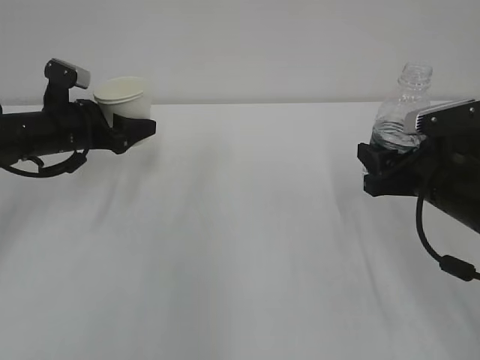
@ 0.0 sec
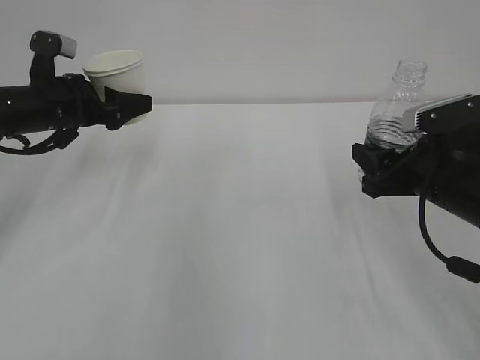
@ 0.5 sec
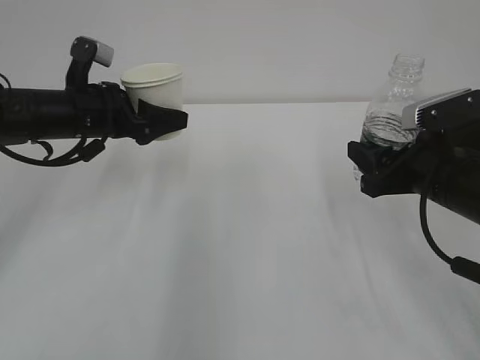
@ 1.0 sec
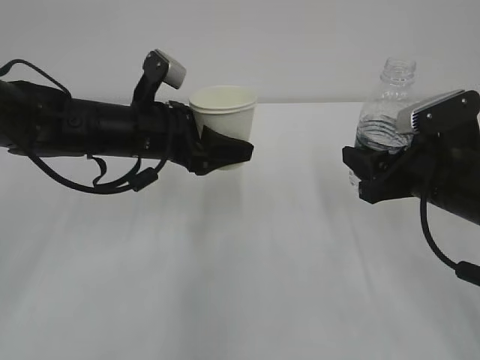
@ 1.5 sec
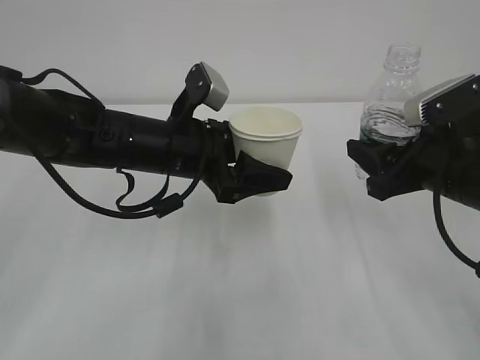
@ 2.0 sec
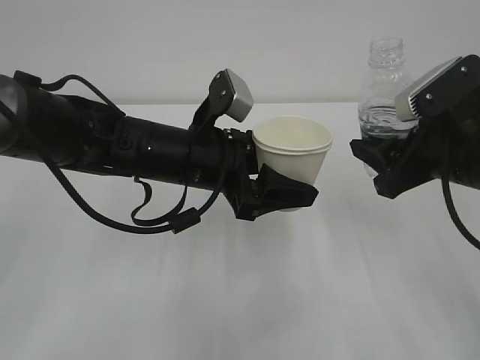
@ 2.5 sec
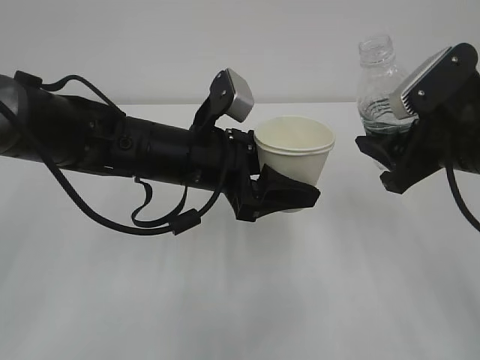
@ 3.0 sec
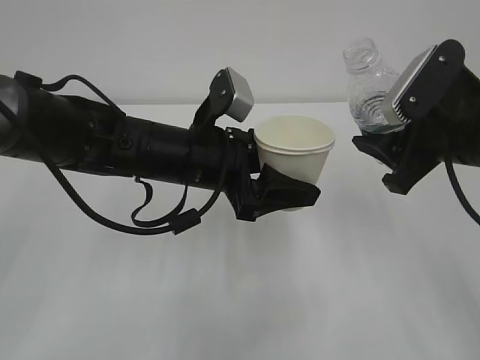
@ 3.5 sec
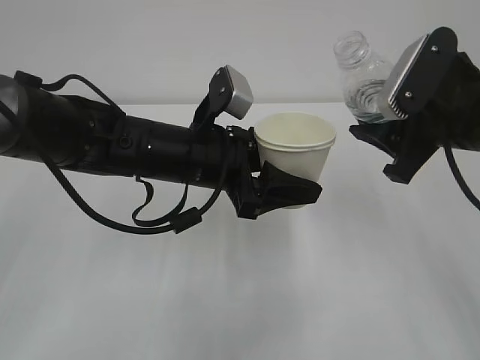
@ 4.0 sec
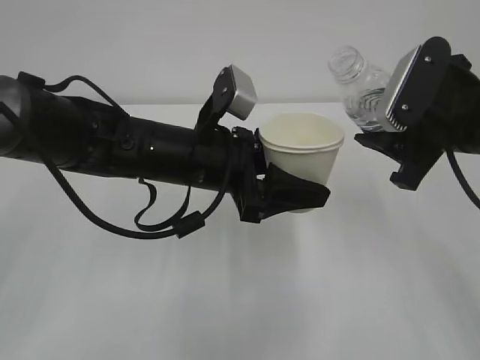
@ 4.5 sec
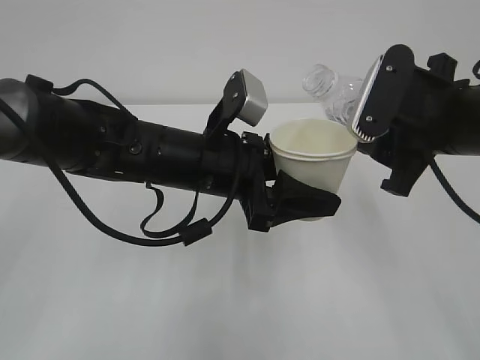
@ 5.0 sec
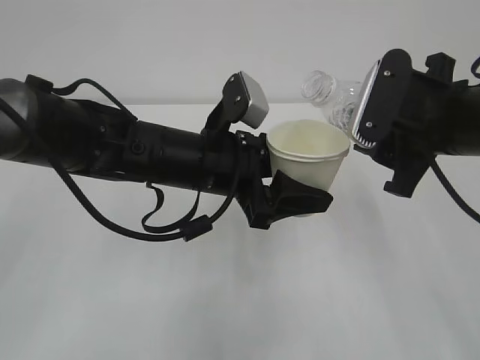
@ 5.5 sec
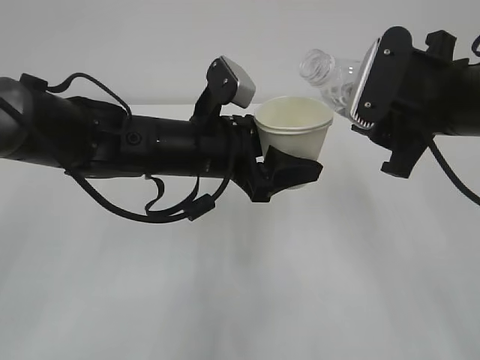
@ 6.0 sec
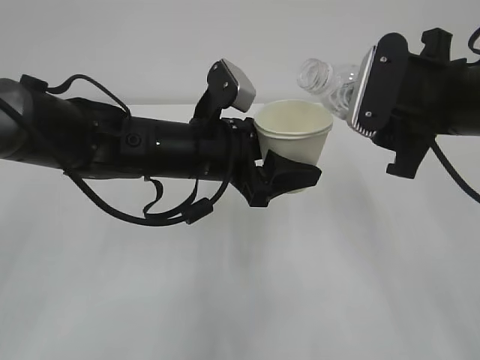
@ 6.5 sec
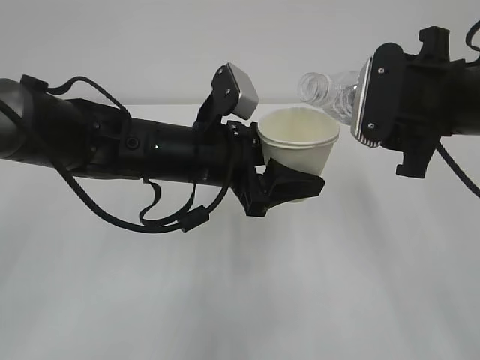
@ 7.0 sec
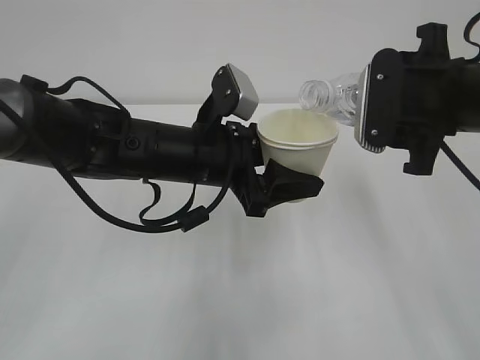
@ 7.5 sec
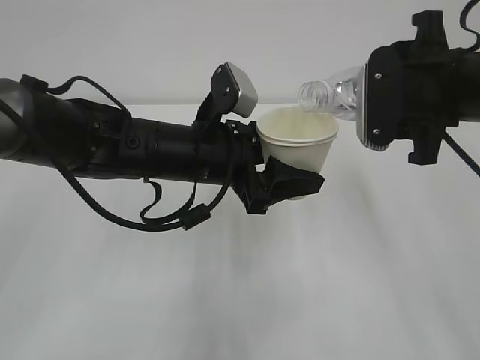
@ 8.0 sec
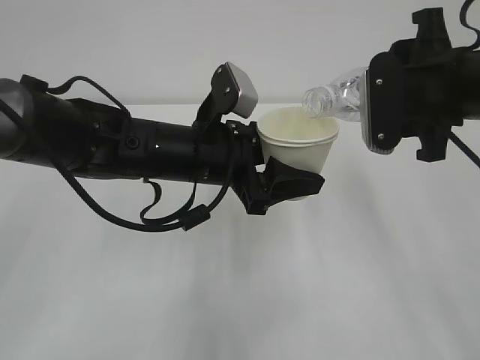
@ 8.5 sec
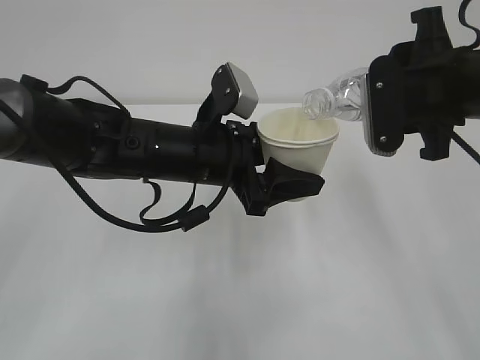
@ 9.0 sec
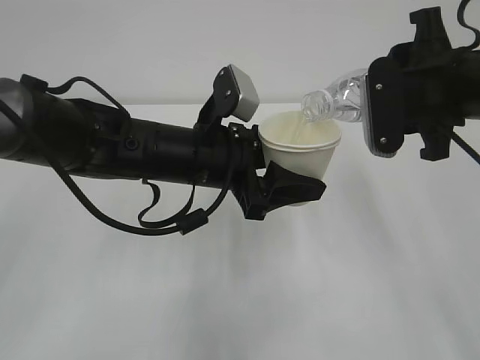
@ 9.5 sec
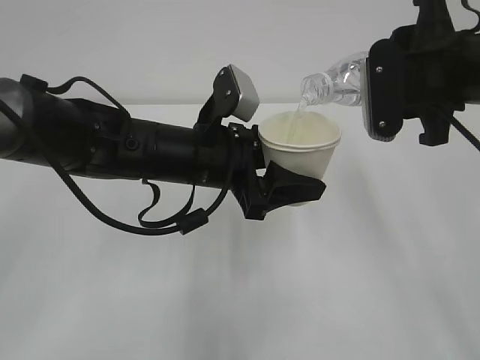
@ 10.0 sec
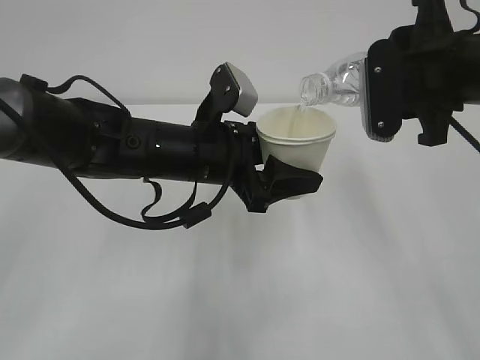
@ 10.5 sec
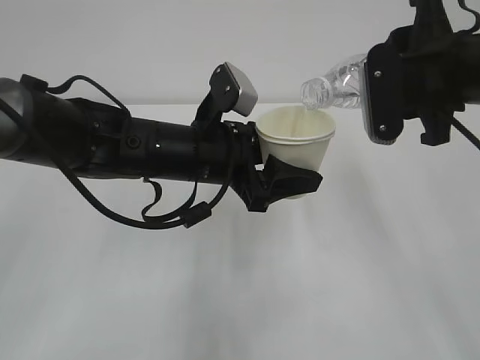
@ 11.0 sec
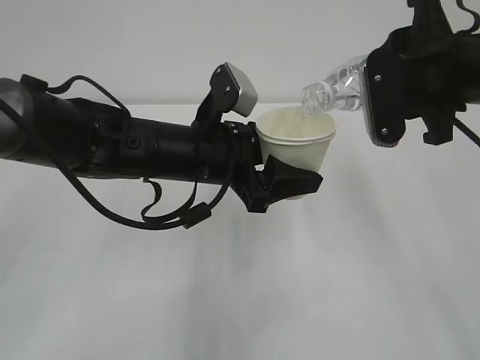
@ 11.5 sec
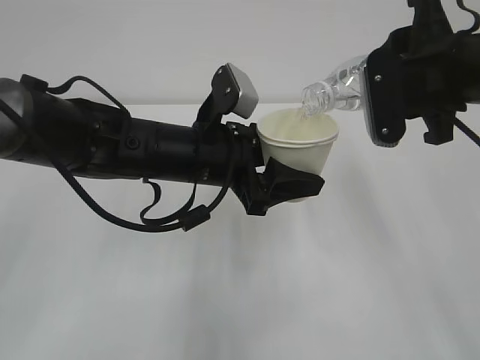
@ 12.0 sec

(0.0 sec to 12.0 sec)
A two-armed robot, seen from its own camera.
0.0 sec - 2.0 sec: The left gripper heads to the right and backward, covering about 20 cm.
2.0 sec - 4.0 sec: The right gripper goes approximately 5 cm upward.
4.0 sec - 6.0 sec: The grippers make only small movements.
8.0 sec - 10.0 sec: The grippers stay close to where they were, moving slightly.
10.0 sec - 12.0 sec: Both grippers stay about where they are.

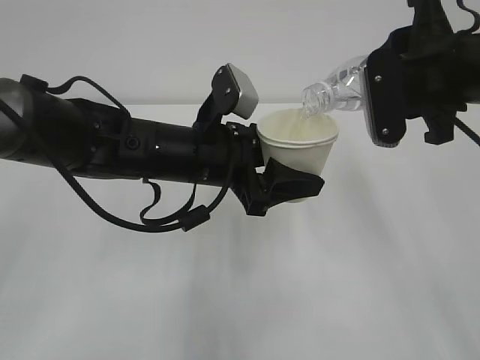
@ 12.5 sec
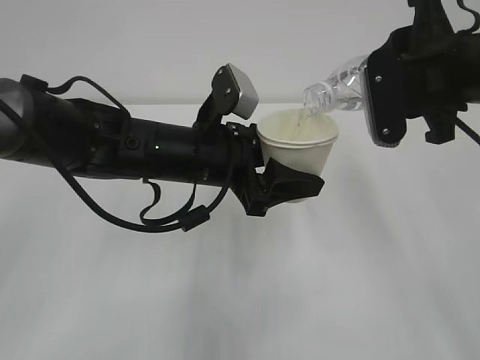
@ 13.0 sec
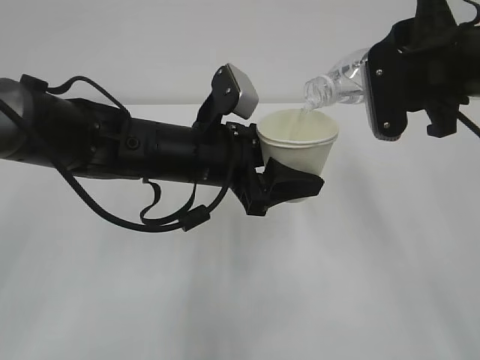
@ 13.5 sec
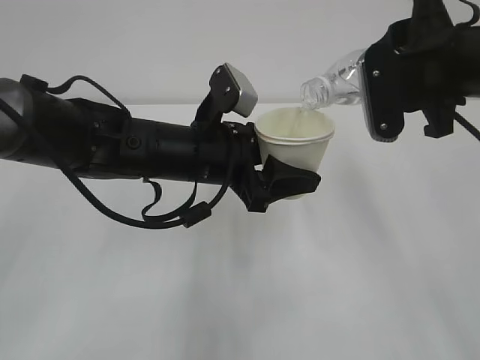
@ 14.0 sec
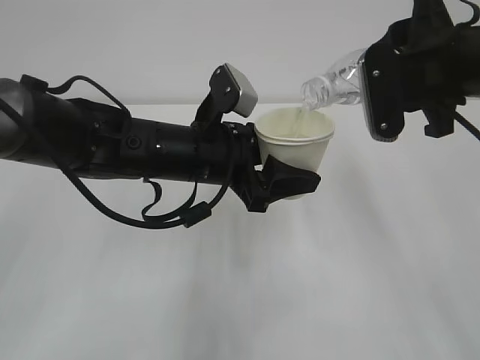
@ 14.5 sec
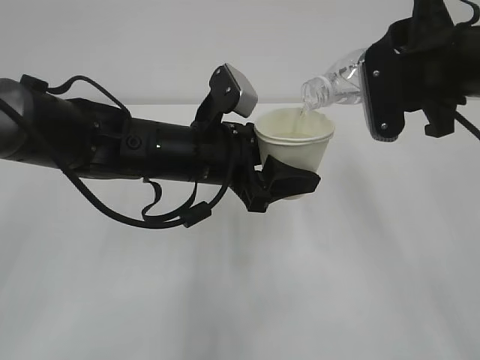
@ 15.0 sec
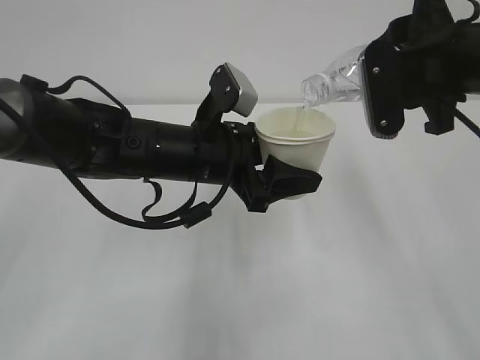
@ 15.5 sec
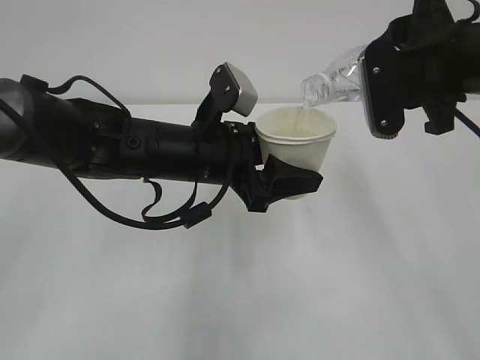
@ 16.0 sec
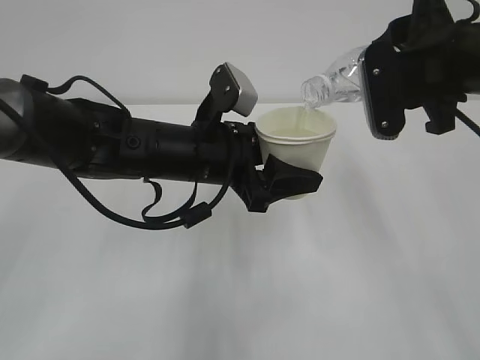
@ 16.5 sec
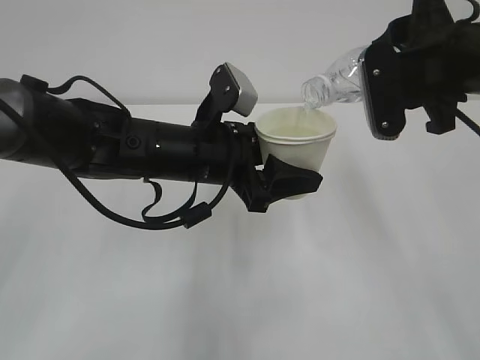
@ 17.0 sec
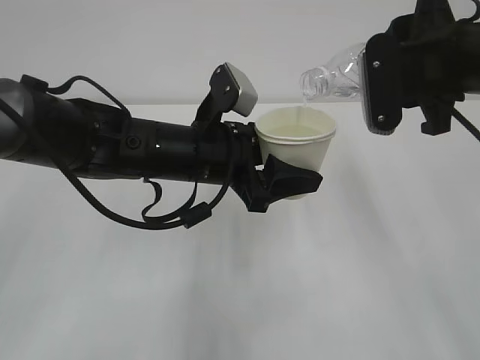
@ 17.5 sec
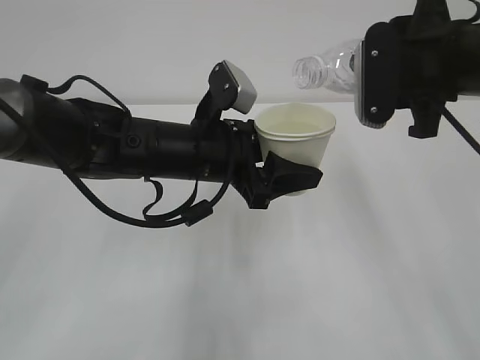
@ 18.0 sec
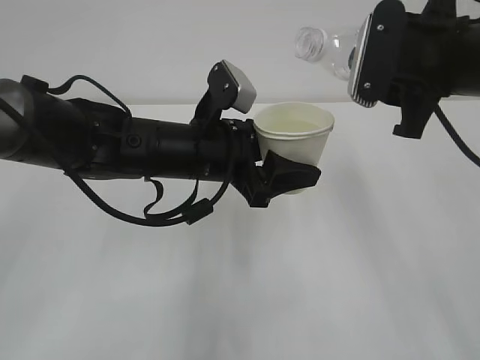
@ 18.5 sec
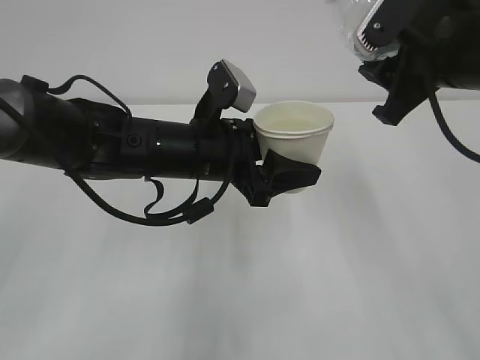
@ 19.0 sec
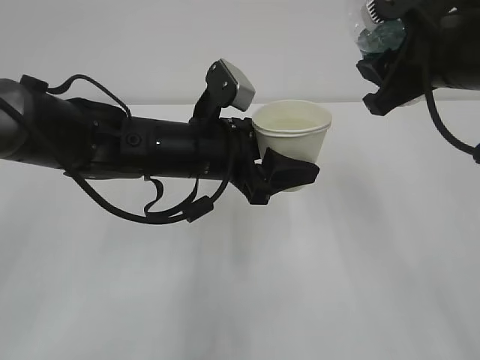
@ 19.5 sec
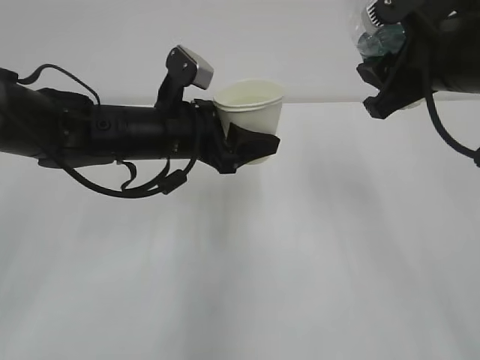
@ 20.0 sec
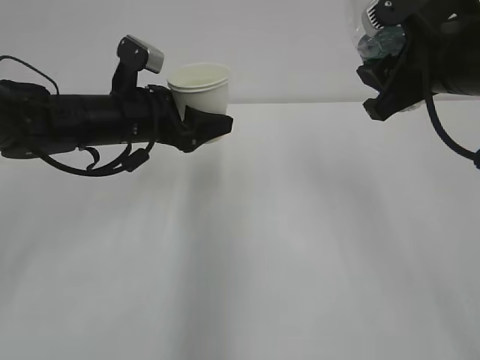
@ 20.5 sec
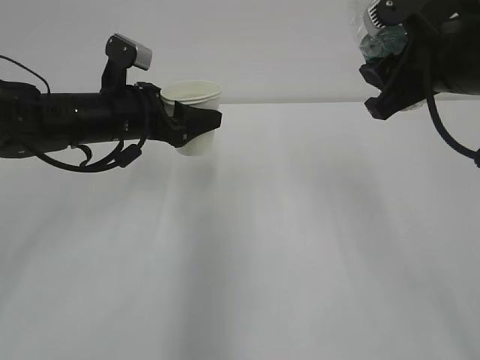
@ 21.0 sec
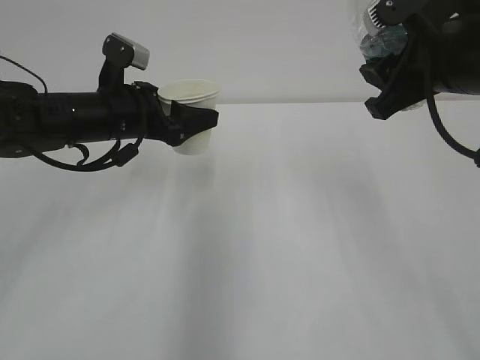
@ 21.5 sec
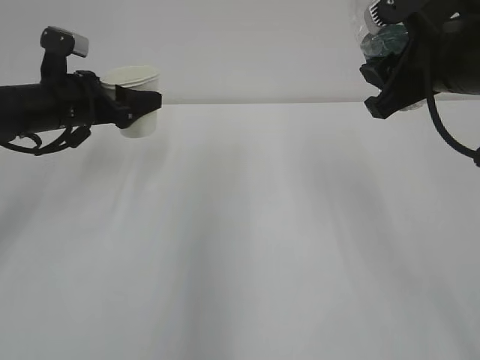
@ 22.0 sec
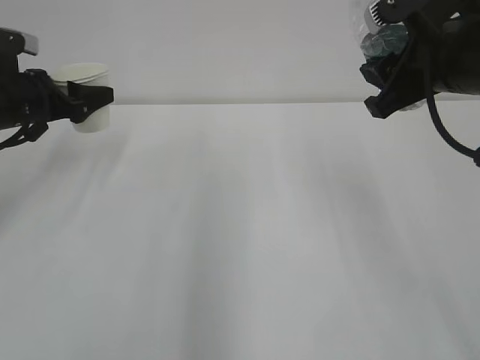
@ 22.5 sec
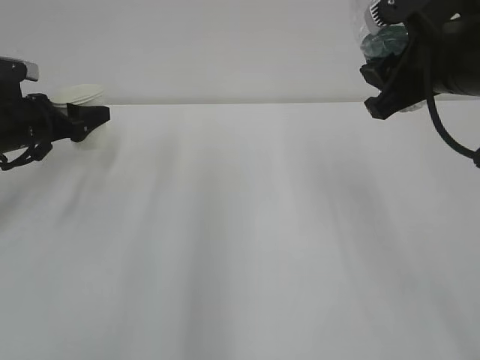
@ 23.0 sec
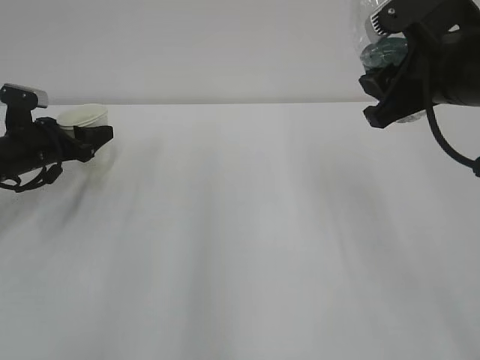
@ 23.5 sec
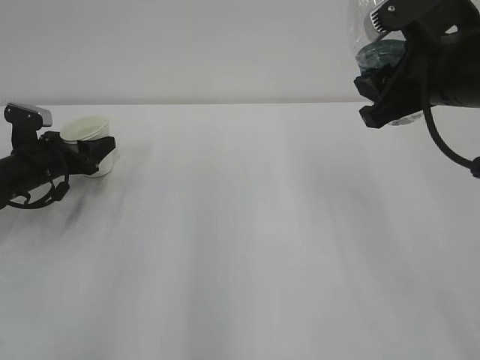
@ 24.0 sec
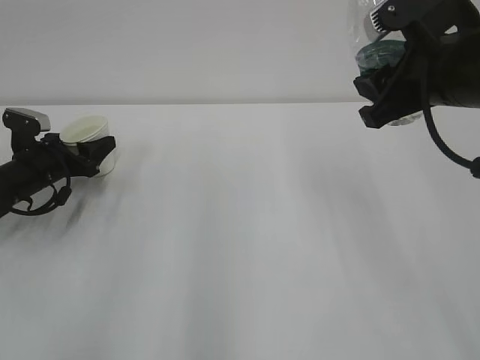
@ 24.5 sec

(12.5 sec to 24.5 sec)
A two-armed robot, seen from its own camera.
12.5 sec - 16.5 sec: Both grippers stay about where they are.
18.5 sec - 20.5 sec: The left gripper goes some 10 cm to the left and forward.
20.5 sec - 22.5 sec: The left gripper moves to the left, roughly 15 cm.
22.5 sec - 24.5 sec: The left gripper shifts approximately 10 cm downward.

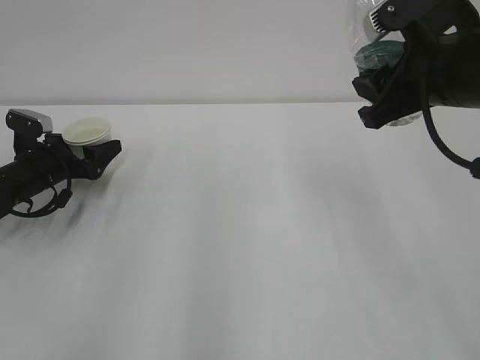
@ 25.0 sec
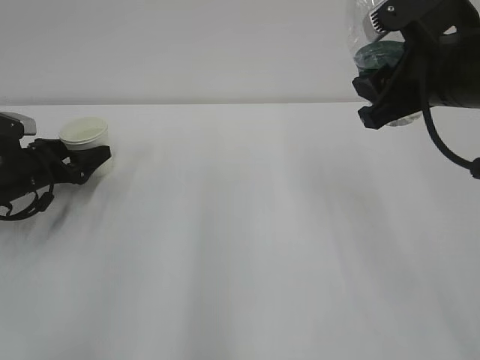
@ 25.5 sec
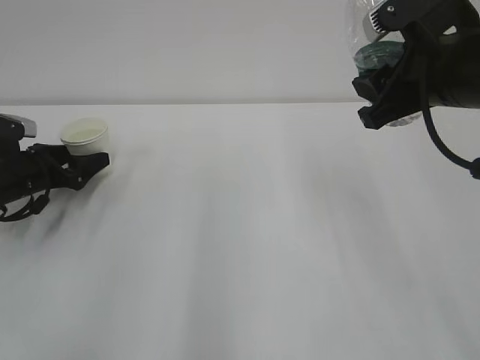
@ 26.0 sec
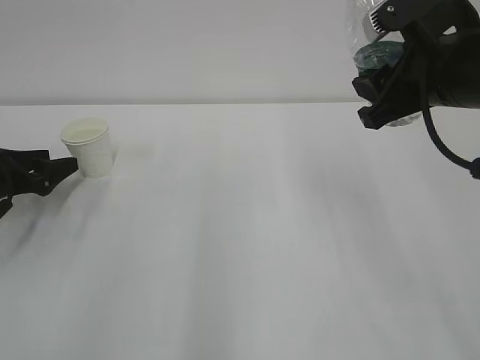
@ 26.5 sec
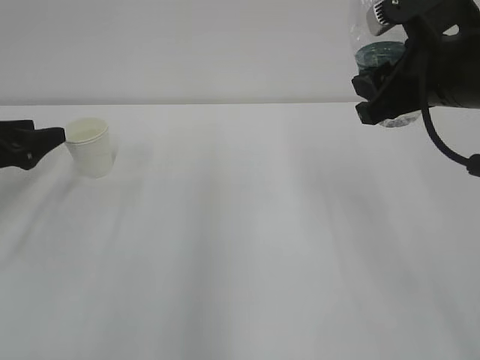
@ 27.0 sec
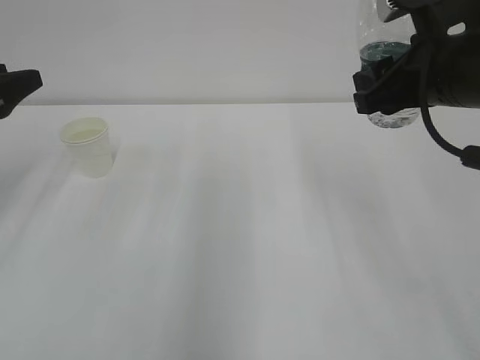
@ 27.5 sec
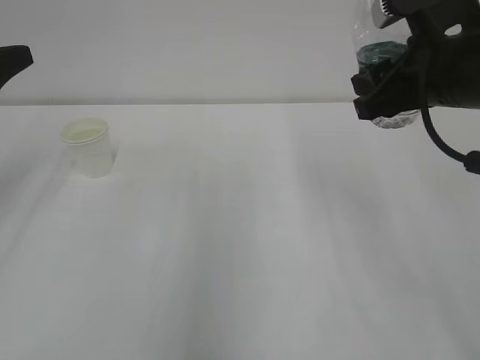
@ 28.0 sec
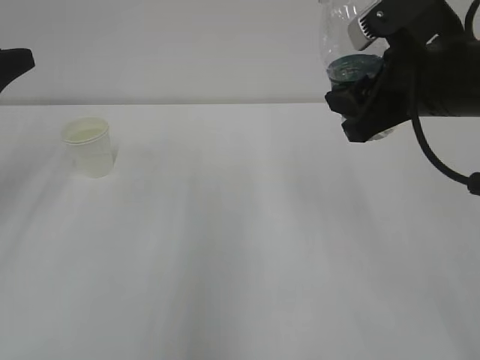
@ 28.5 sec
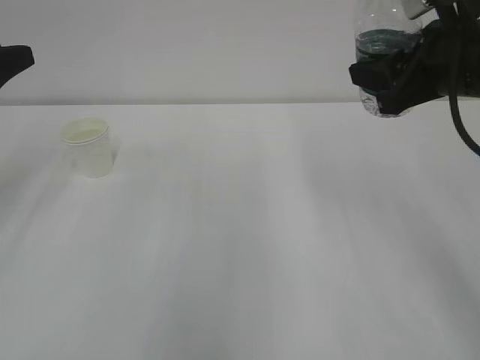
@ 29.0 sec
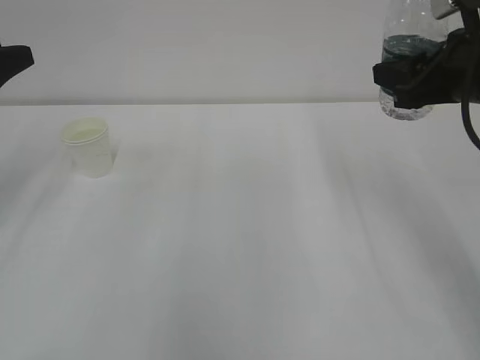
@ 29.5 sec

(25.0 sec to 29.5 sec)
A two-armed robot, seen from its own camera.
25.0 sec - 27.0 sec: The left gripper heads upward and backward, covering some 10 cm.
27.0 sec - 29.5 sec: The left gripper shifts roughly 10 cm upward. Meanwhile the right gripper heads to the right, covering some 5 cm.
